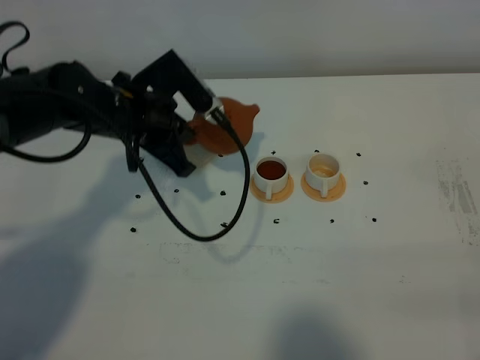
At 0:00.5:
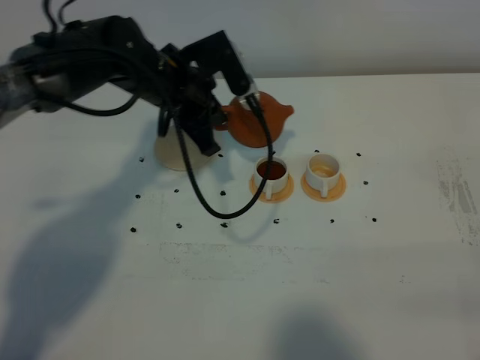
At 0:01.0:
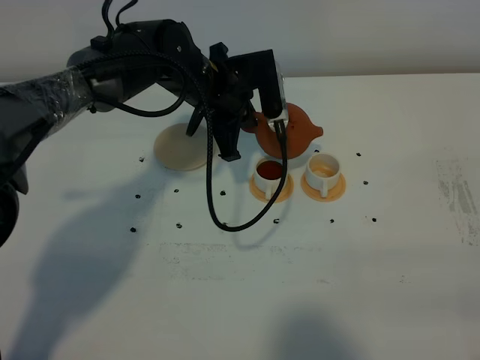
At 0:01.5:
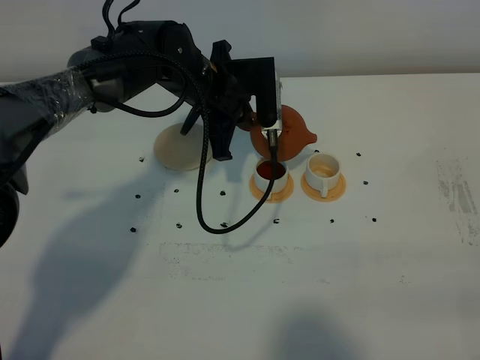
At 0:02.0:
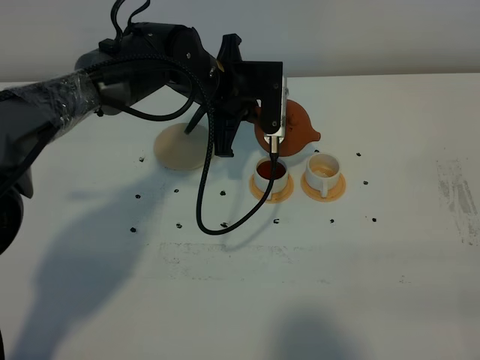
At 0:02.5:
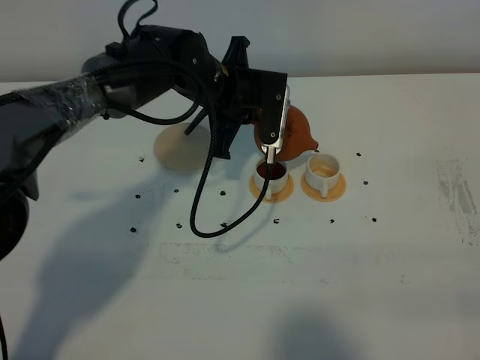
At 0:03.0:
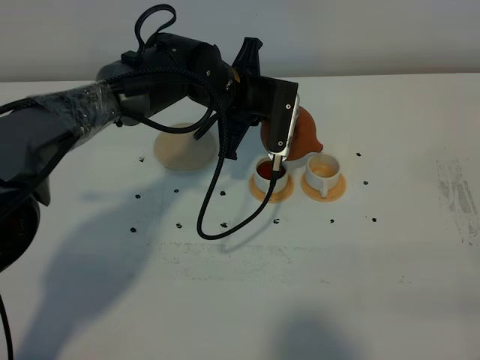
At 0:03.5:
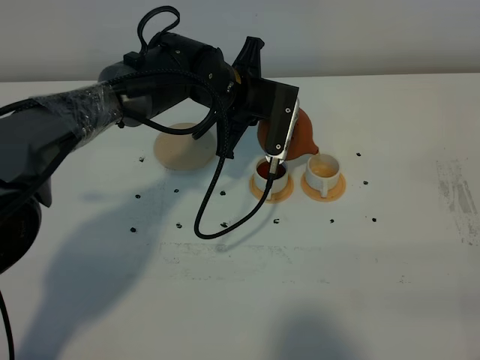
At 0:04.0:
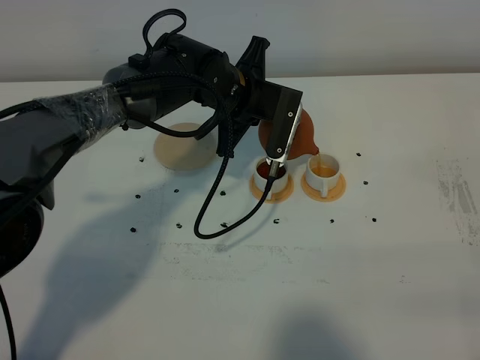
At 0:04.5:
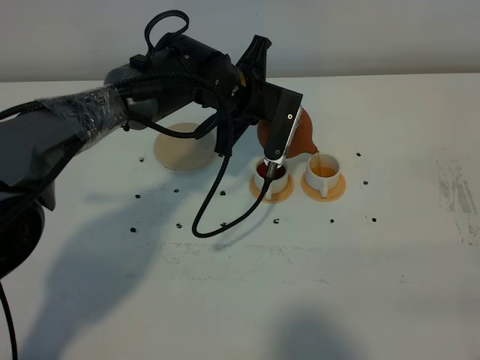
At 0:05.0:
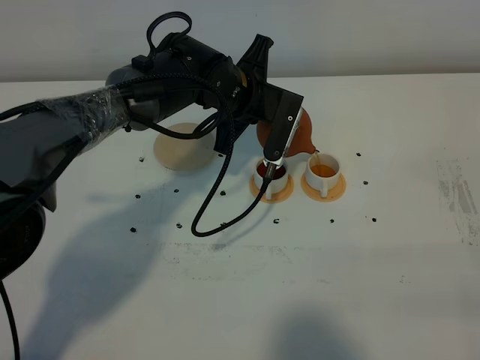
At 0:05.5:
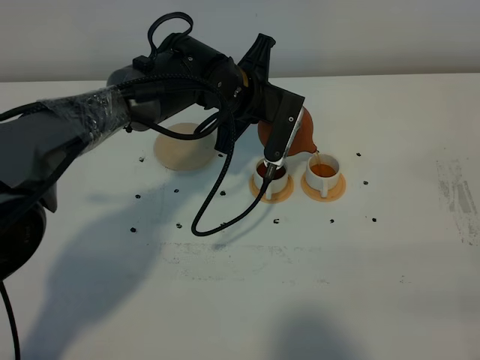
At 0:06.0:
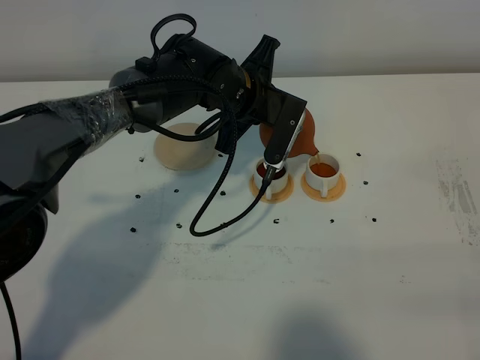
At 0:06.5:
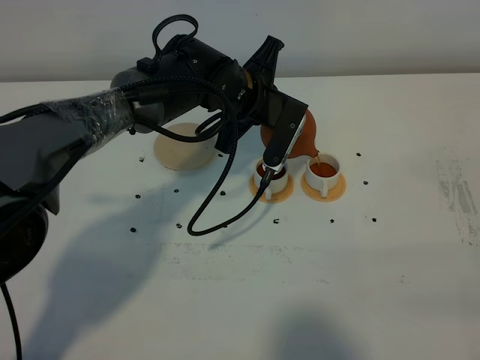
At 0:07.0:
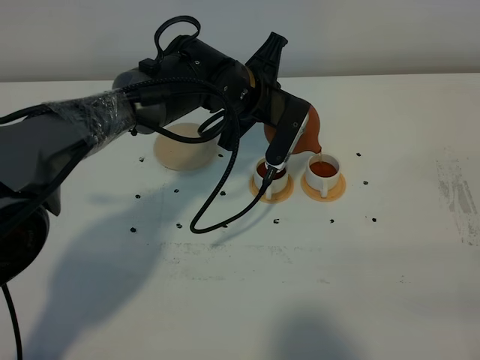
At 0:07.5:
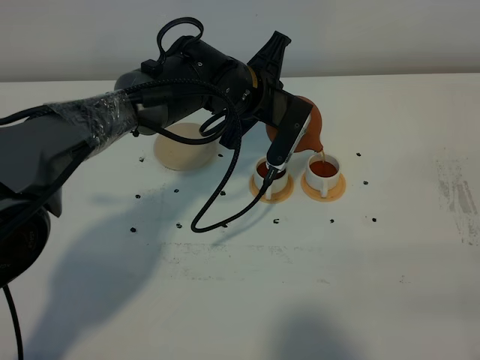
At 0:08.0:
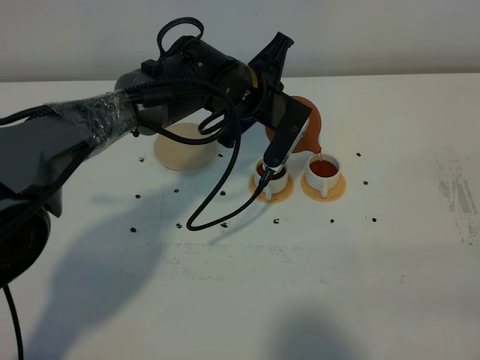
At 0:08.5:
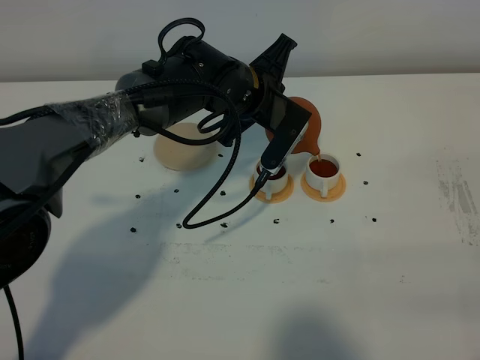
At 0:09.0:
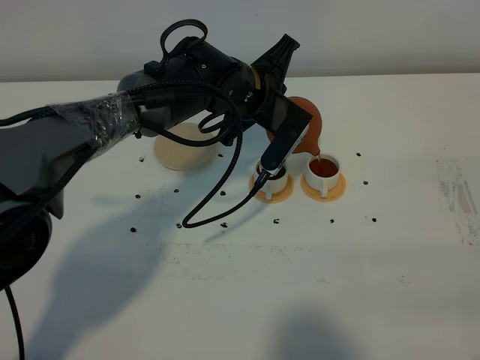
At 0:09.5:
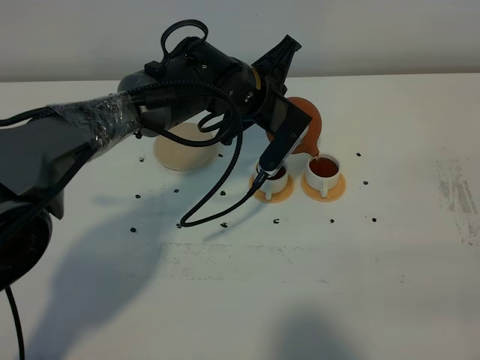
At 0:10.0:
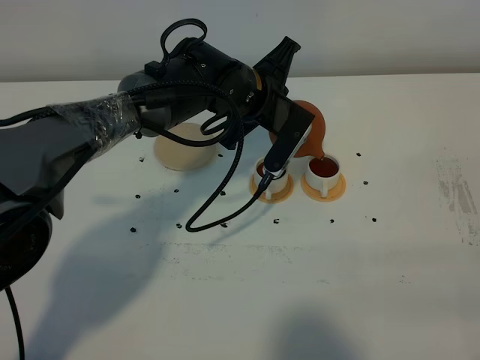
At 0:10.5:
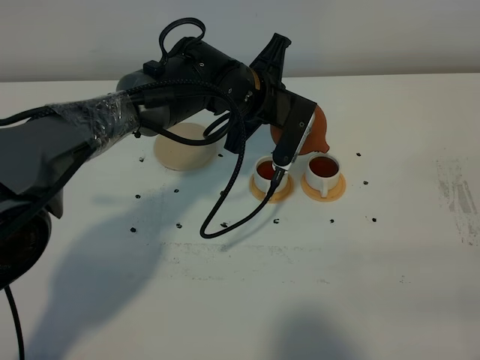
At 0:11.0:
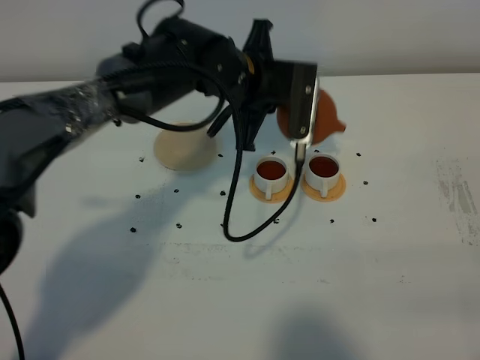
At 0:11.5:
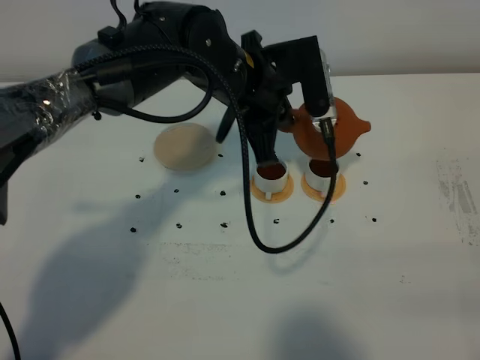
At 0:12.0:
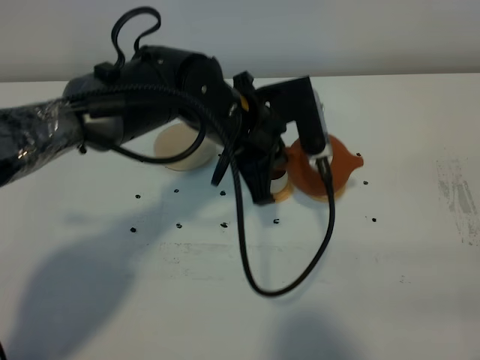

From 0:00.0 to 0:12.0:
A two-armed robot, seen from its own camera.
Task of the whole recording: grasp the brown teapot and pour the tea into the two white teacups one by one, put the brown teapot back in its original place.
Step, from 0:00.0 to 0:10.5: Pour tea into the teacup with the left gripper.
From 0:00.0 to 0:02.0: The left gripper is displaced to the right and forward by about 10 cm.
From 0:02.0 to 0:04.0: The grippers make only small movements.
From 0:04.0 to 0:08.0: The grippers move only a little.
From 0:08.0 to 0:10.0: The grippers stay close to where they were, moving slightly.
From 0:10.0 to 0:12.0: The left gripper shifts approximately 10 cm backward.

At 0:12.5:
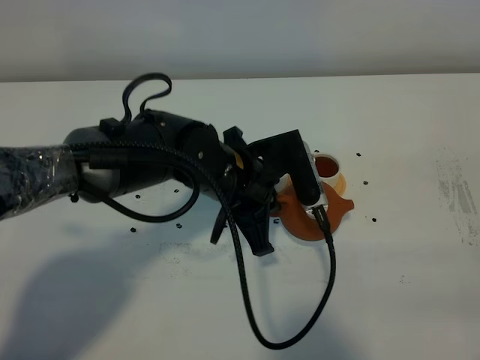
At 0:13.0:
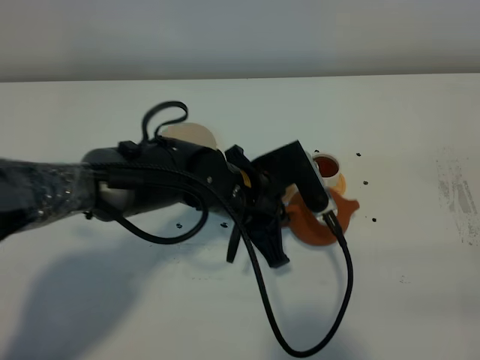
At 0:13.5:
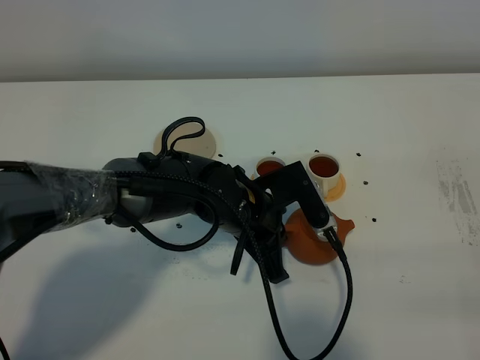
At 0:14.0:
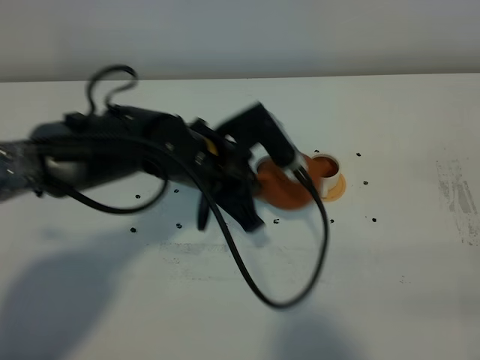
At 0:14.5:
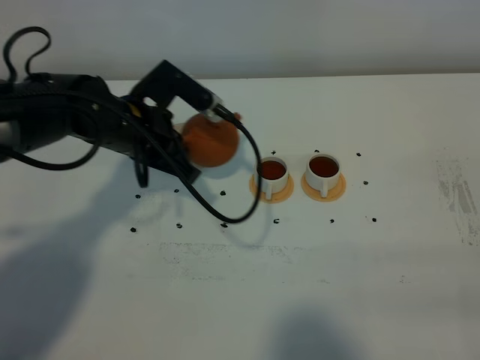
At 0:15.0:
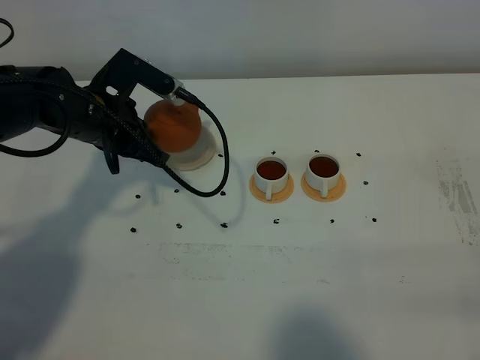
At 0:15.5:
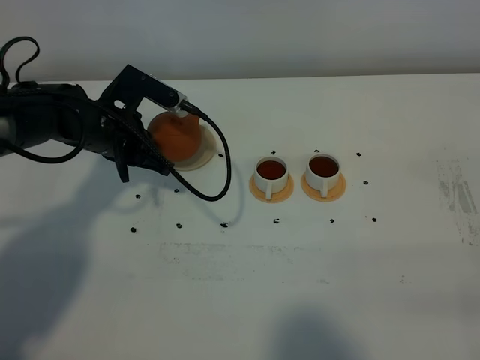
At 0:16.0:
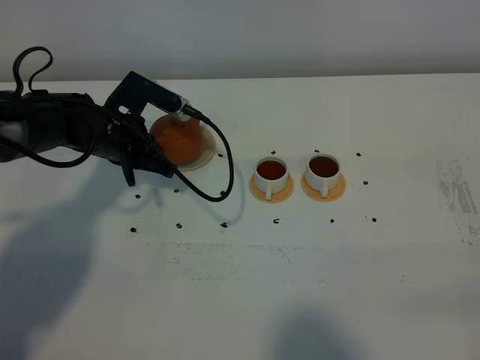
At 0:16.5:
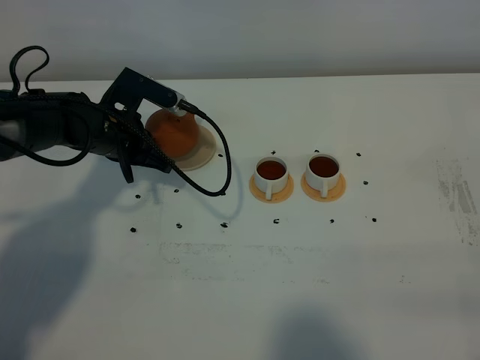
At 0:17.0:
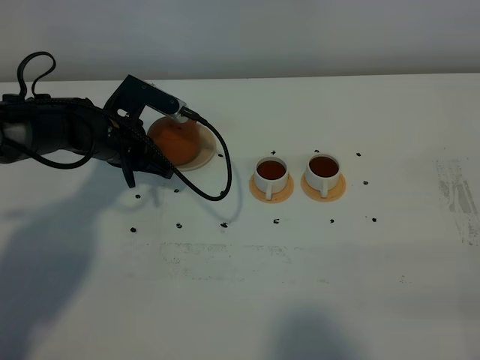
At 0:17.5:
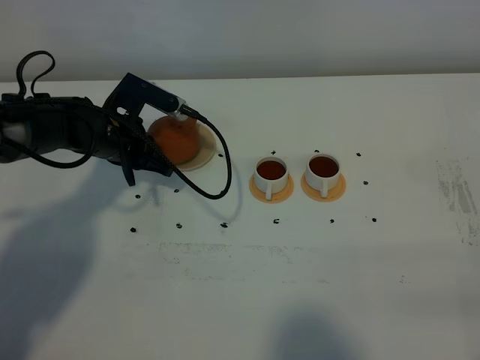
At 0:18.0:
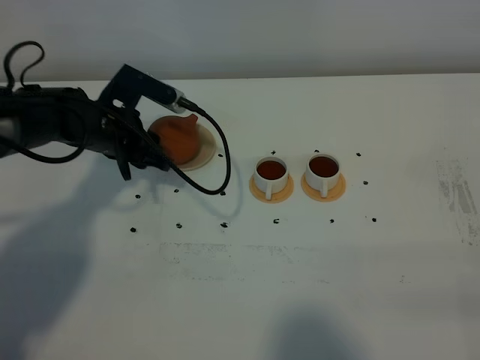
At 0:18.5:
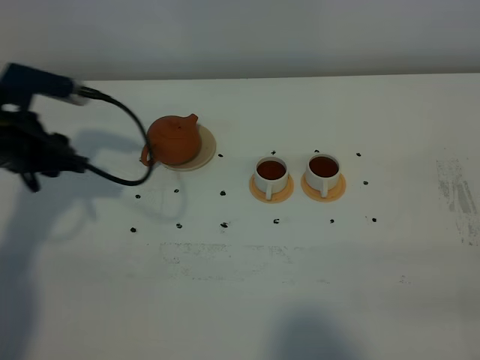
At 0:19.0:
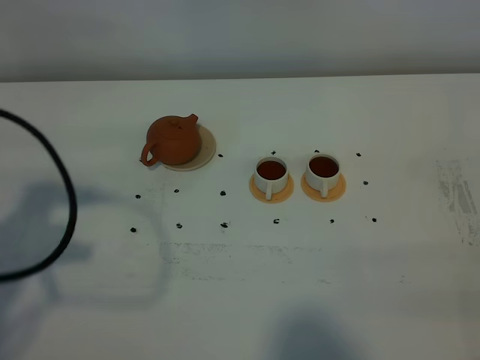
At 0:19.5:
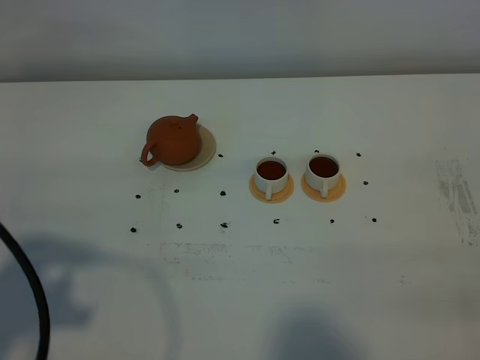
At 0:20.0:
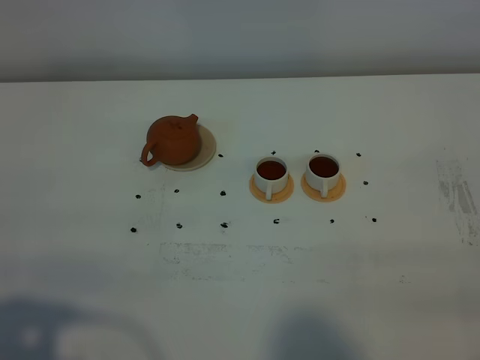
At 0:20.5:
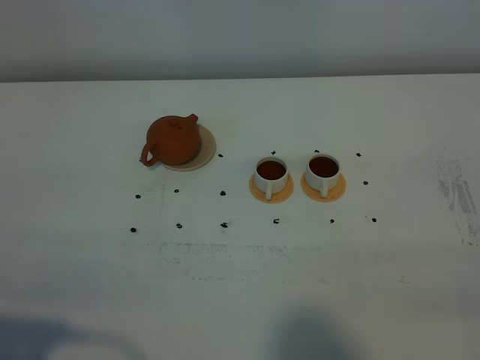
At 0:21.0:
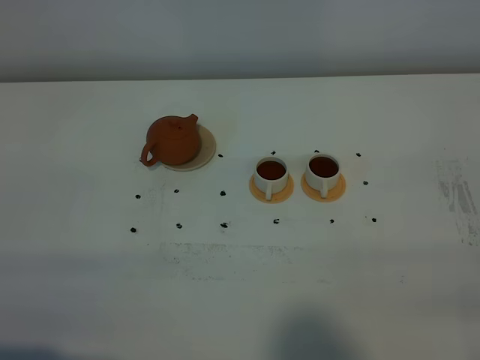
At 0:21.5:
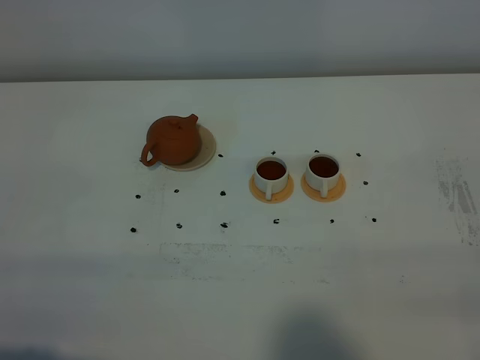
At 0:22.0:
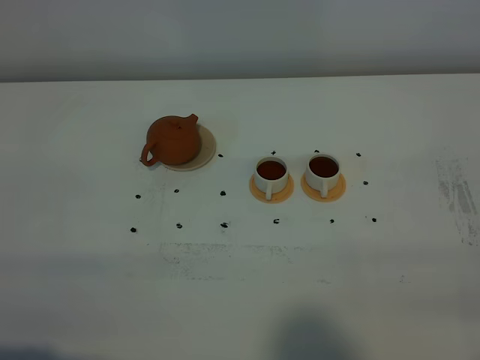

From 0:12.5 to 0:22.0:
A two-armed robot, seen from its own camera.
Task of the whole recording: grasp the brown teapot and pour the tea into the two white teacups one by one, put the brown teapot back in its original place.
From 0:12.5 to 0:14.5: The left gripper heads to the left and forward, covering some 15 cm.
From 0:14.5 to 0:16.5: The left gripper is displaced downward by about 5 cm.
From 0:16.5 to 0:18.0: The left gripper opens its fingers.
From 0:18.0 to 0:20.0: The left gripper goes some 35 cm backward.
From 0:20.0 to 0:22.0: The left gripper changes place by some 5 cm.
